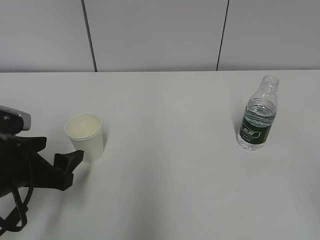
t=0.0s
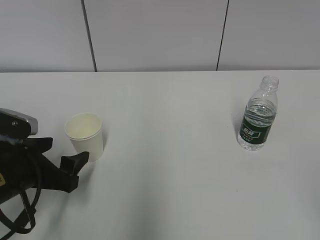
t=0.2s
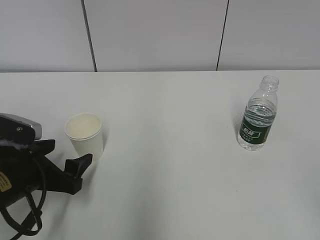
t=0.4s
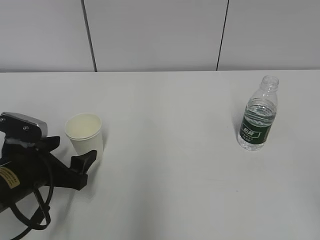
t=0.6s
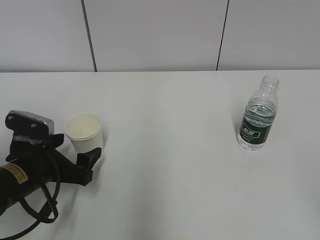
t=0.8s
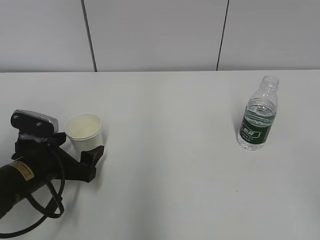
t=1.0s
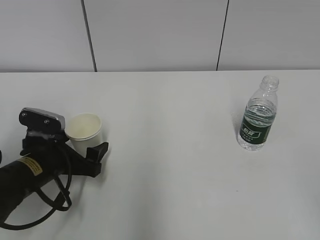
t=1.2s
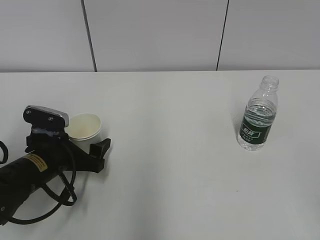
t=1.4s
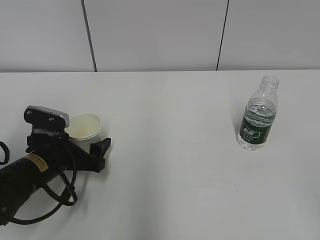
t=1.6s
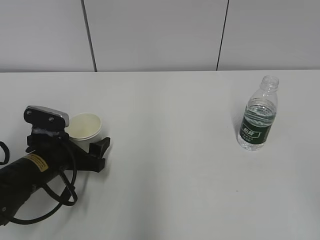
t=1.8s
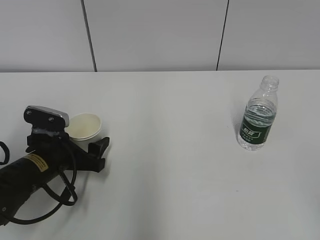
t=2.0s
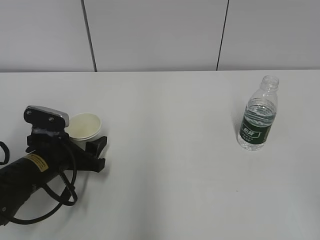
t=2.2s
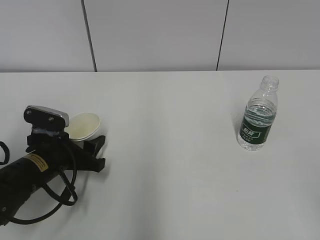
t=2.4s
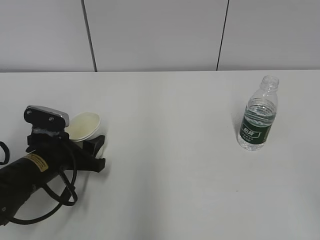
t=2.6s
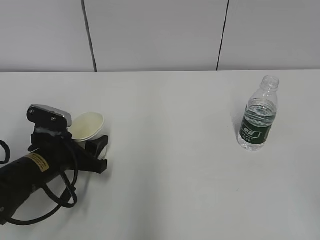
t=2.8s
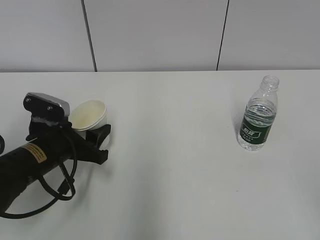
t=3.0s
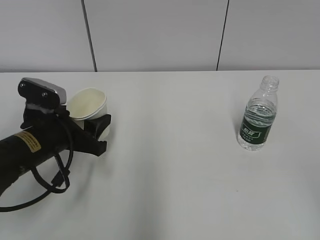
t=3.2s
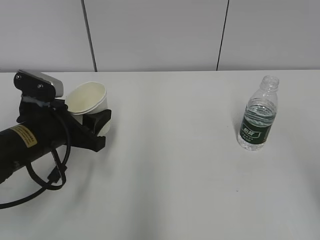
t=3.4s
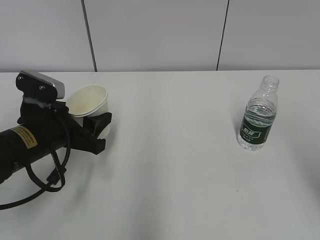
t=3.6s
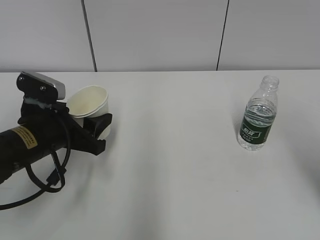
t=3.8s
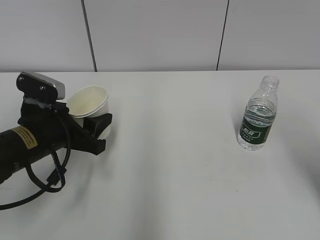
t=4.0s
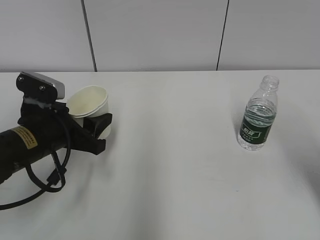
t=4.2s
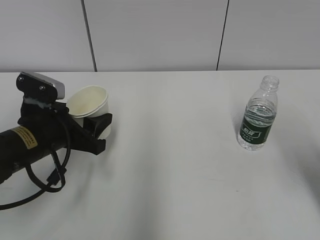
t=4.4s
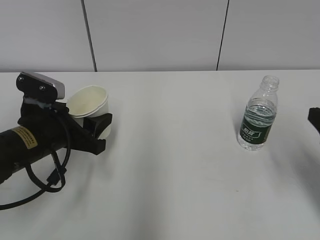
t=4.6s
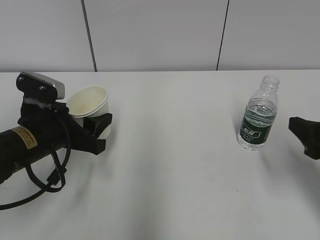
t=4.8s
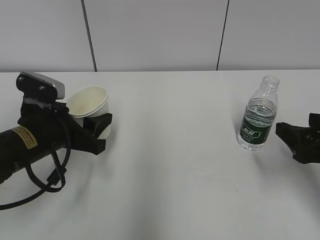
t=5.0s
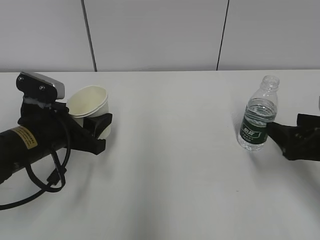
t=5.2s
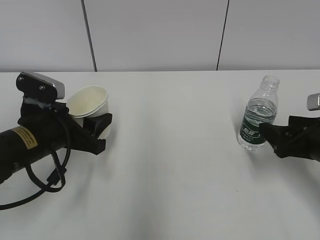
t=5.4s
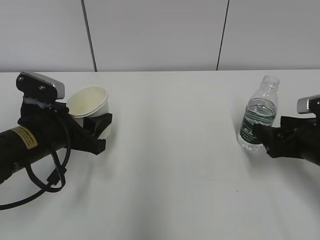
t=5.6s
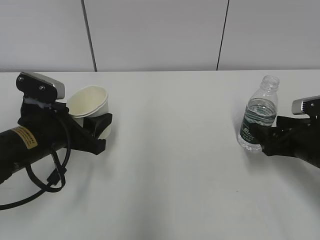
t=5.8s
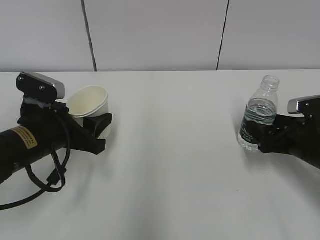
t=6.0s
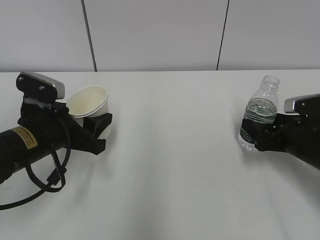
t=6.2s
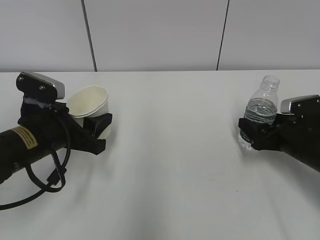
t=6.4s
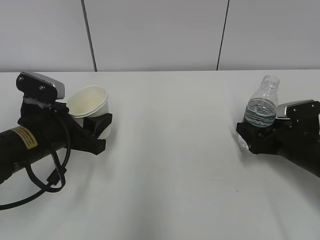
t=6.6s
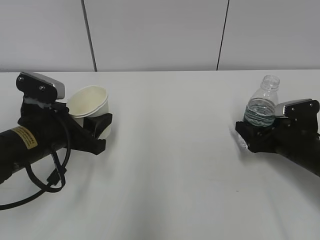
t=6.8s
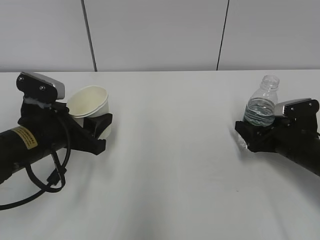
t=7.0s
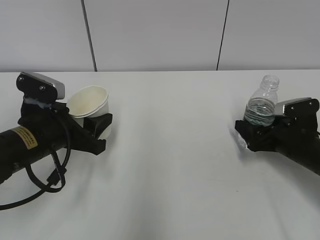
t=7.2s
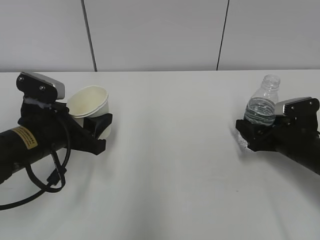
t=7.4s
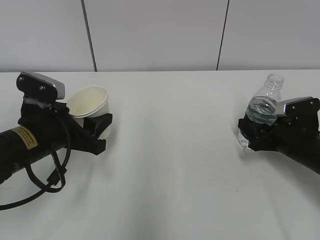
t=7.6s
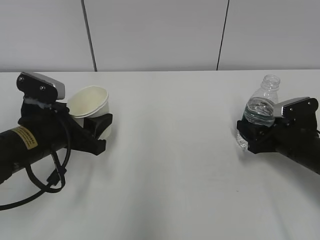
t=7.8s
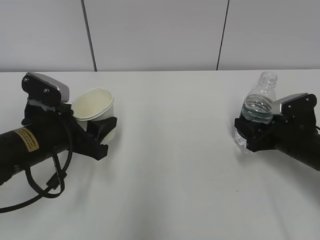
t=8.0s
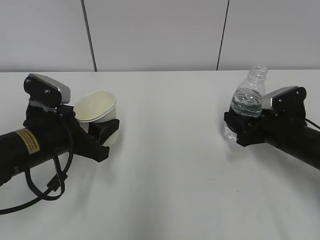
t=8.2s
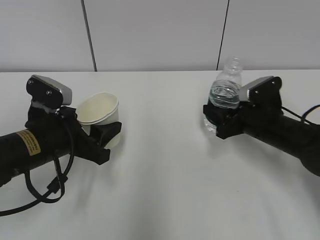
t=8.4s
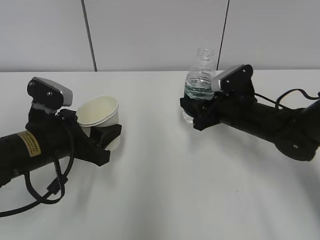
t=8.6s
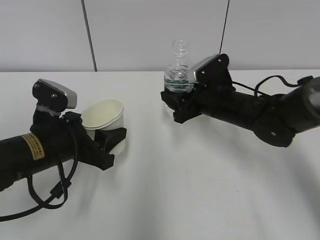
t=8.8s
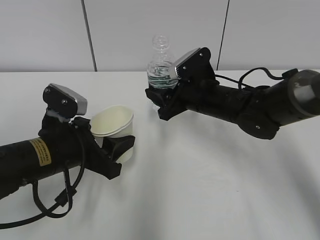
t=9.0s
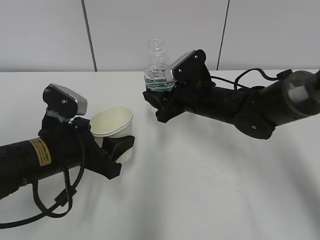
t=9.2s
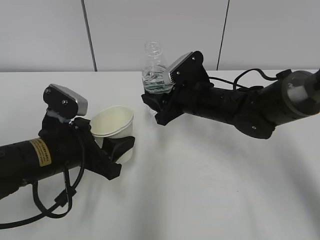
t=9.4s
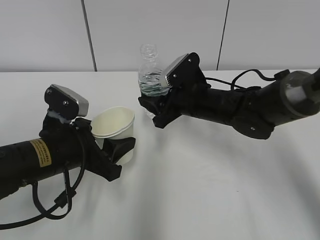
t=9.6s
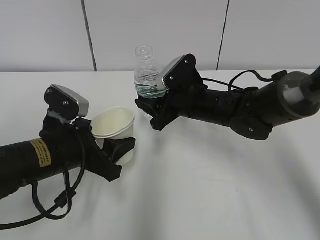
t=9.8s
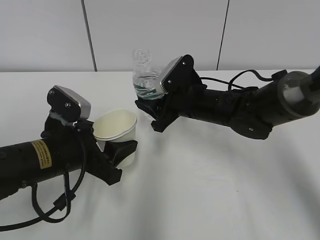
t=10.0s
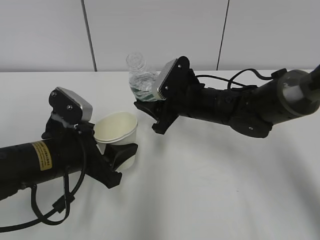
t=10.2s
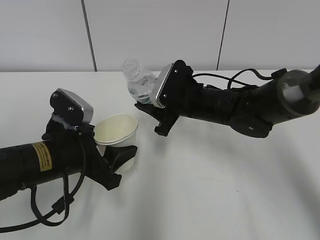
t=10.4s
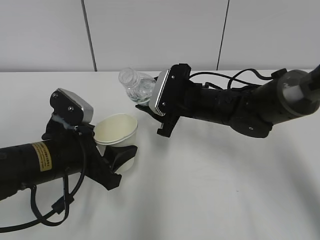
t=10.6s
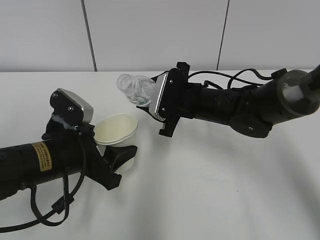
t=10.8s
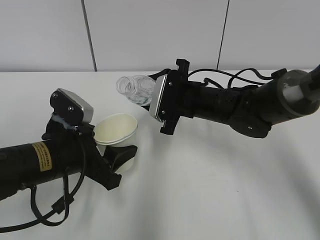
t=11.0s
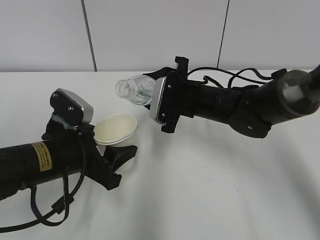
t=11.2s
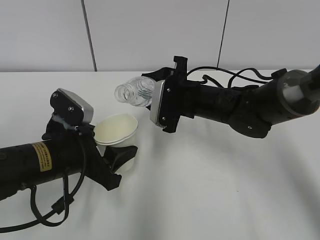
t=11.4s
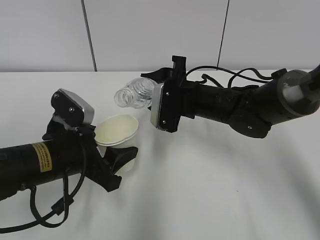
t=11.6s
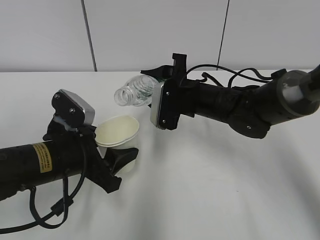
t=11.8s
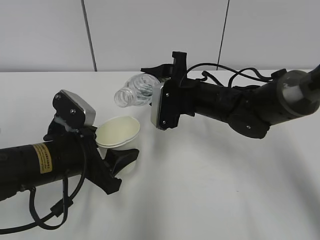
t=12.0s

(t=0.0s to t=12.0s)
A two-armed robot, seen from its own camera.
Step, t=1.8s - t=5.8s: Grab the water bottle with the right hand.
t=0.0s - t=1.6s: The left gripper is displaced forward and downward by about 10 cm.
t=1.6s - t=3.0s: The left gripper closes up.
t=3.0s - t=4.4s: The right gripper goes about 20 cm forward.
t=4.4s - t=6.0s: The right gripper shifts approximately 15 cm downward and forward.
t=6.0s - t=7.6s: The right gripper closes its fingers.
t=7.6s - t=9.0s: The right gripper moves to the left and upward, roughly 20 cm.

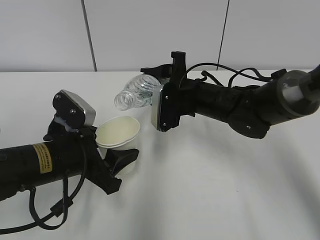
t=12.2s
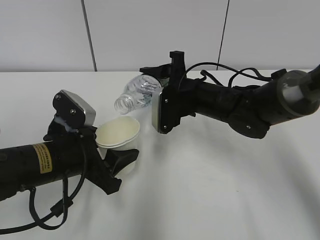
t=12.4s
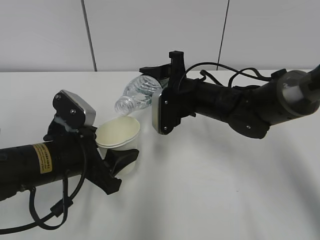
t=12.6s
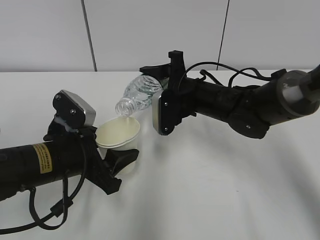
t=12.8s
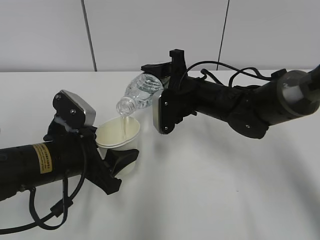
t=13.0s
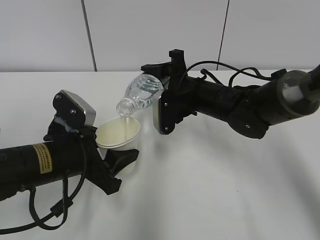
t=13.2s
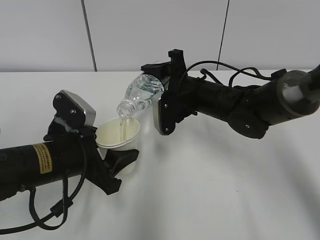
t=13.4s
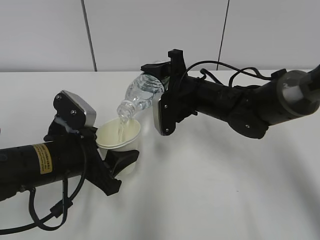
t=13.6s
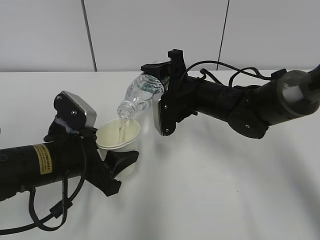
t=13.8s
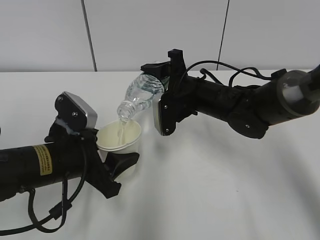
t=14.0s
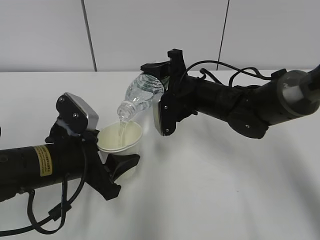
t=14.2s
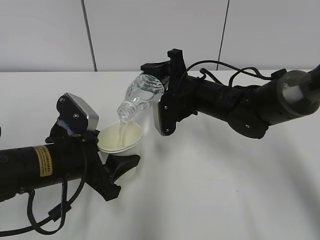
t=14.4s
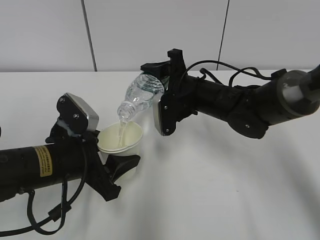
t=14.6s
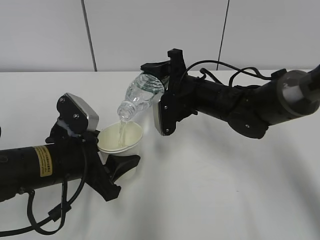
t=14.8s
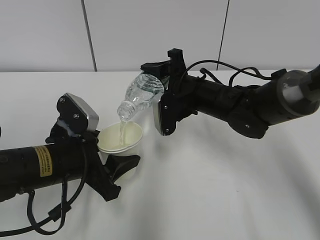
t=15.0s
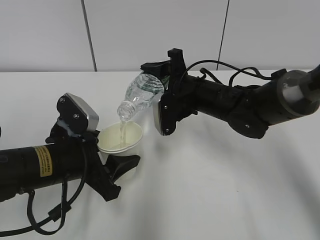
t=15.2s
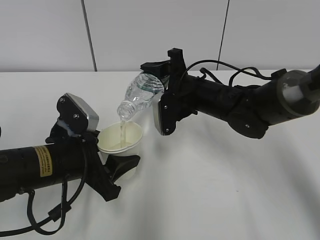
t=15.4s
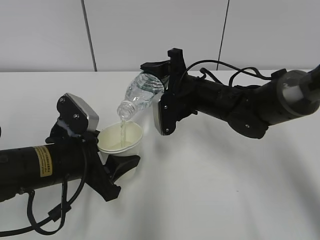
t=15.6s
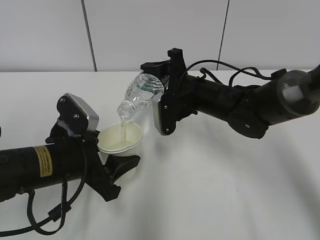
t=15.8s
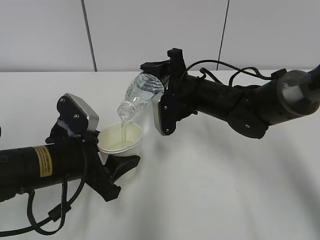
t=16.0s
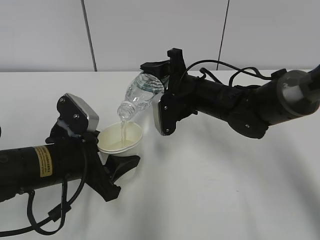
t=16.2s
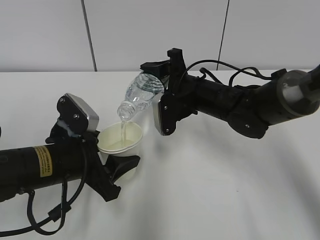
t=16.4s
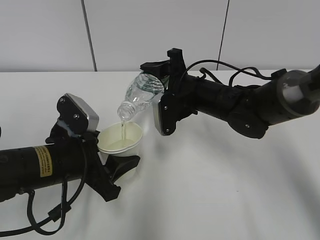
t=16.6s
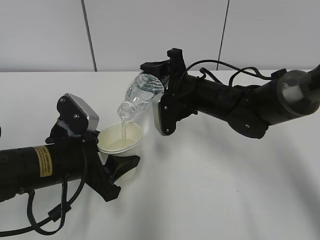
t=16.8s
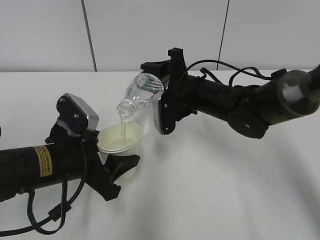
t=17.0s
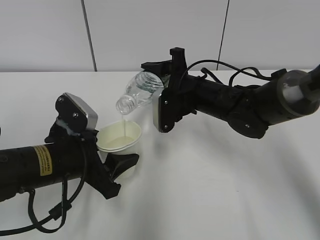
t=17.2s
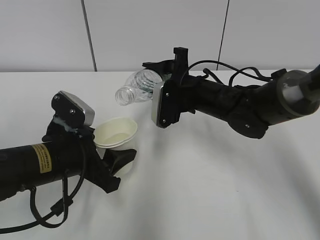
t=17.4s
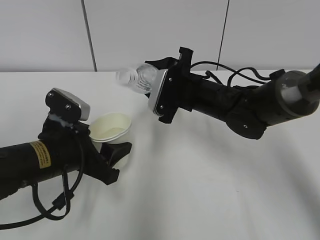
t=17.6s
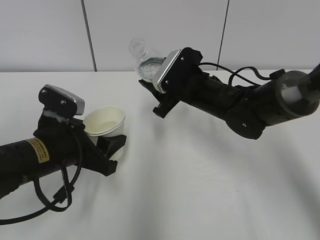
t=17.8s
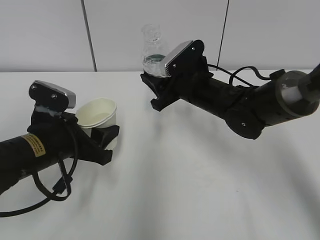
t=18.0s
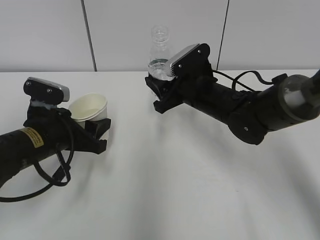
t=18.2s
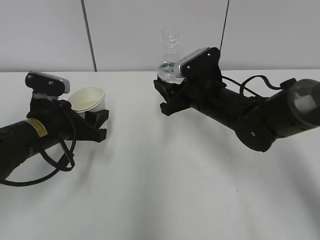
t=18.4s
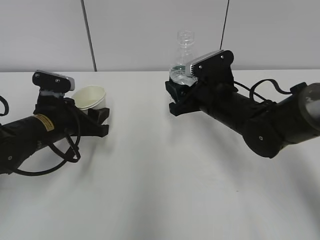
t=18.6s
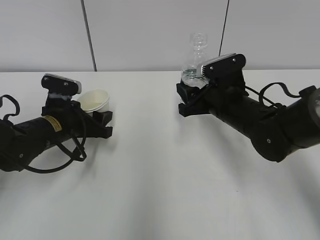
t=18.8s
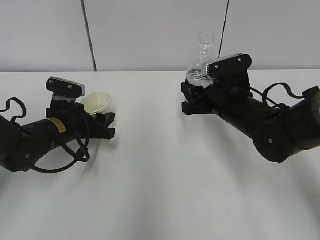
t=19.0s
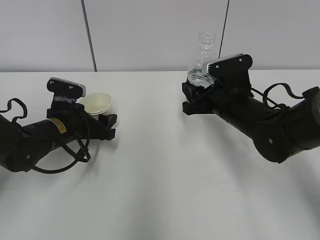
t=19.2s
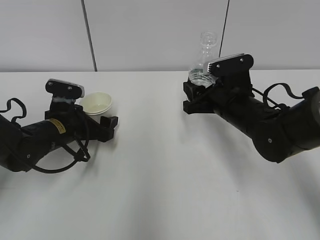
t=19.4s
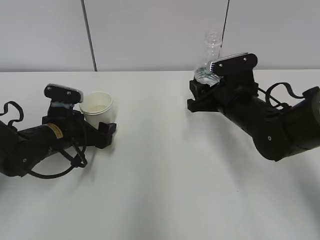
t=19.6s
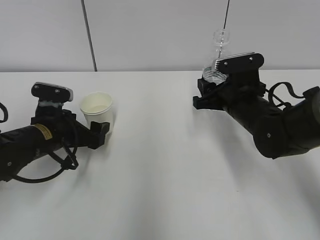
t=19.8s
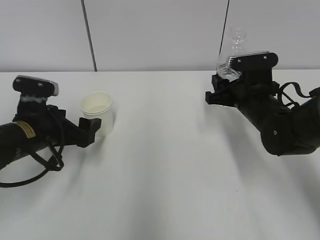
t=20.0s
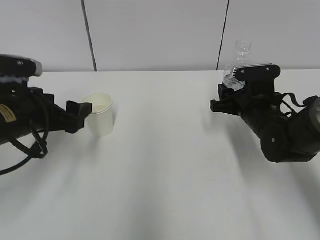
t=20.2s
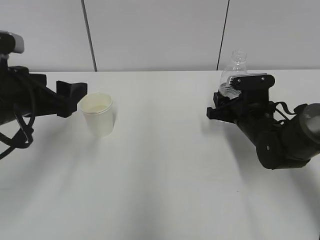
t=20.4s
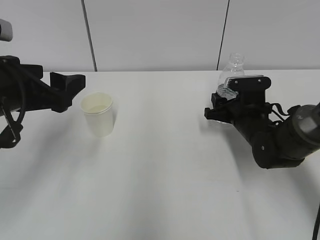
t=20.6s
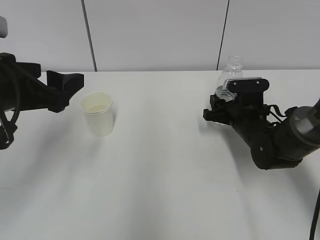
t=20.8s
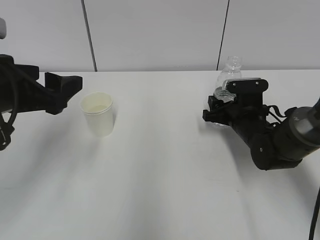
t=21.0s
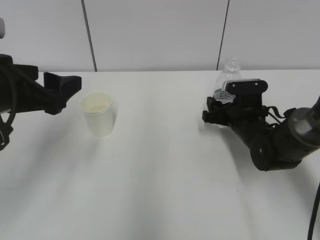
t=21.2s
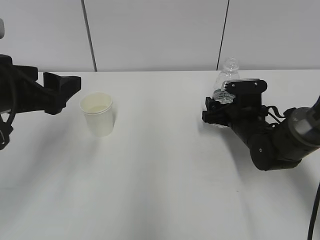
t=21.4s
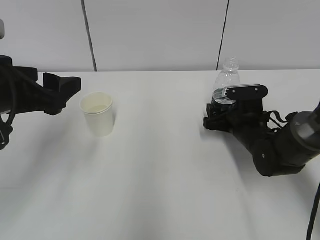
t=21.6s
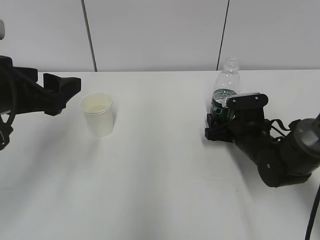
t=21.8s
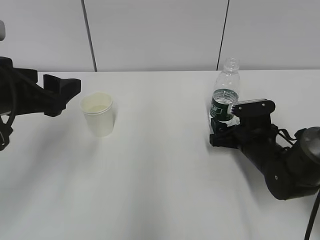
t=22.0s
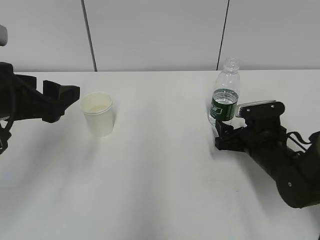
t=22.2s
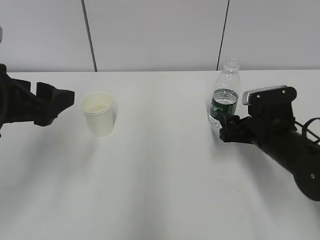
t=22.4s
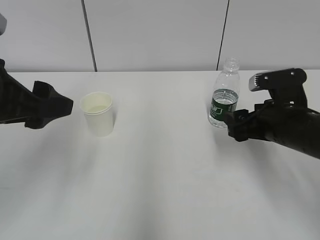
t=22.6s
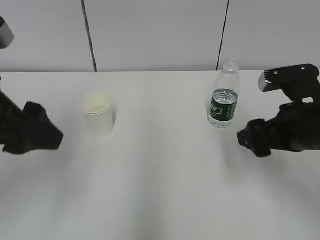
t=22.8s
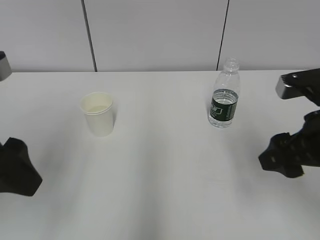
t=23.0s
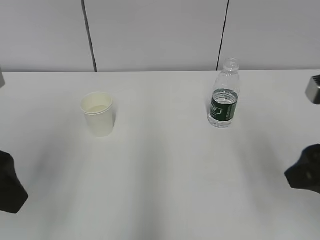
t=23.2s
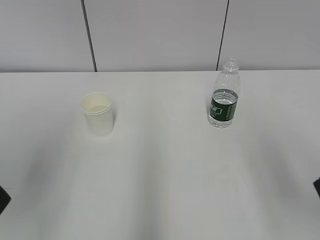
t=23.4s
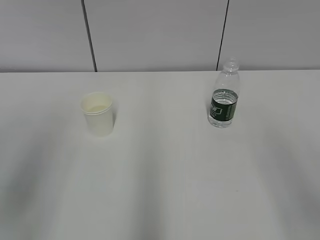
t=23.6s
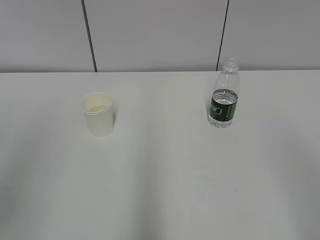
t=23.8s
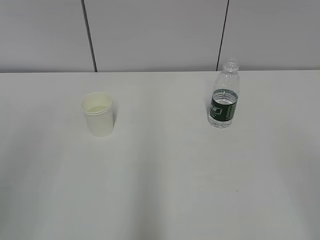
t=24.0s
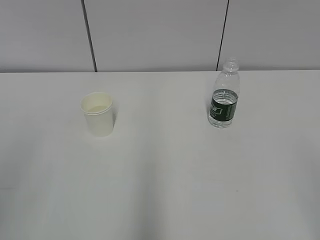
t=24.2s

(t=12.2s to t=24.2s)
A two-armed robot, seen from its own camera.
Step, t=13.8s - t=14.6s: Collect water with the right hand.
t=12.2s - t=13.8s: The grippers make only small movements.
t=13.8s - t=16.6s: The two grippers keep their place.
t=16.6s - t=18.2s: The left gripper shifts by roughly 5 cm.
t=18.2s - t=19.8s: The right gripper is displaced to the right by roughly 5 cm; the left gripper ends up approximately 5 cm from where it was, and opens its fingers.
t=19.8s - t=21.2s: The left gripper heads upward and backward, covering approximately 20 cm. Meanwhile the right gripper heads downward, covering about 5 cm, and opens its fingers.
t=21.2s - t=22.6s: The right gripper is displaced backward and upward by approximately 10 cm.
t=22.6s - t=24.2s: The right gripper is displaced backward and upward by some 30 cm. Meanwhile the left gripper moves backward and to the left, about 20 cm.
